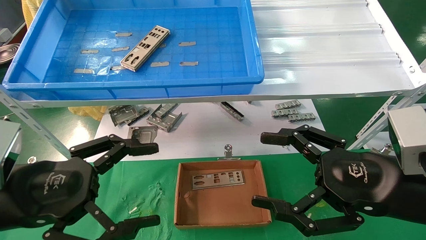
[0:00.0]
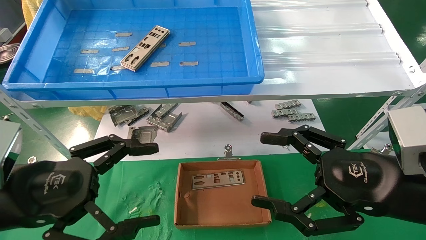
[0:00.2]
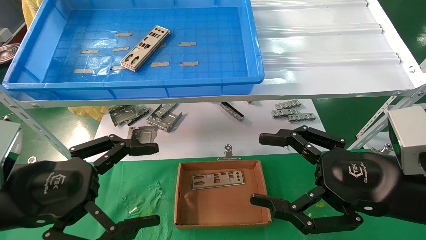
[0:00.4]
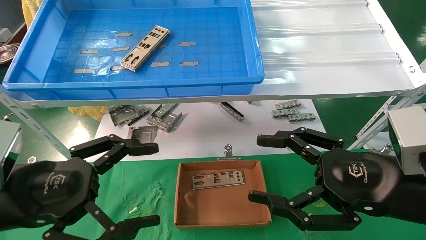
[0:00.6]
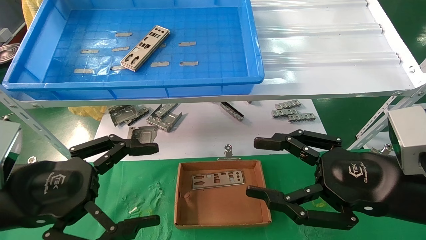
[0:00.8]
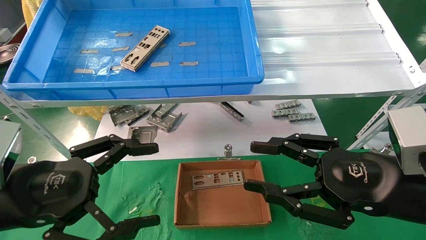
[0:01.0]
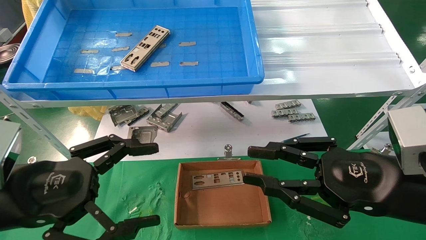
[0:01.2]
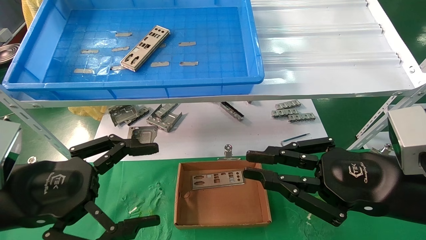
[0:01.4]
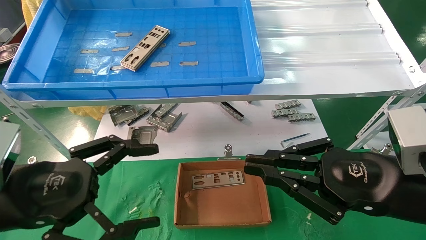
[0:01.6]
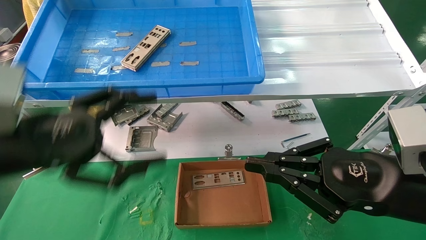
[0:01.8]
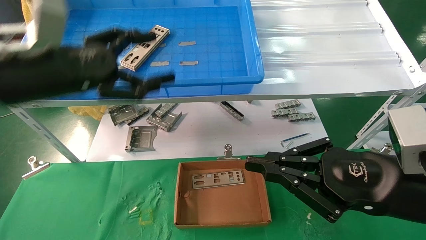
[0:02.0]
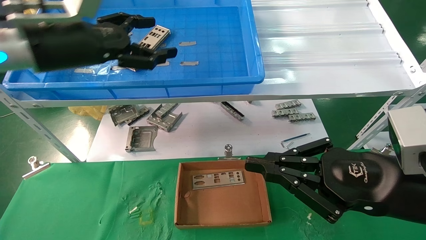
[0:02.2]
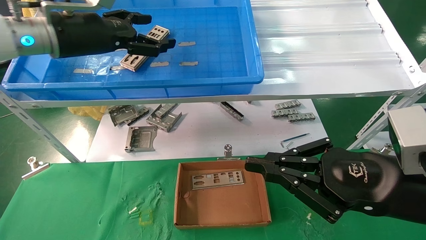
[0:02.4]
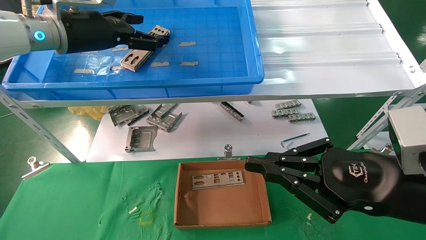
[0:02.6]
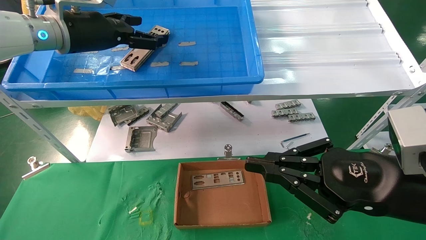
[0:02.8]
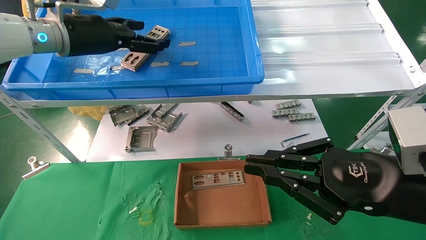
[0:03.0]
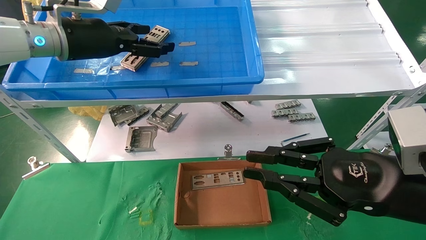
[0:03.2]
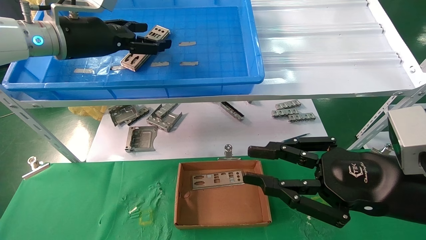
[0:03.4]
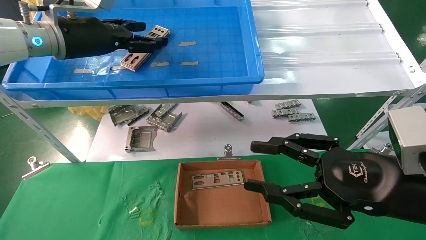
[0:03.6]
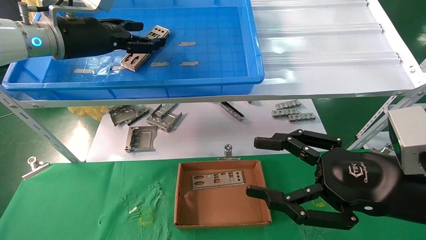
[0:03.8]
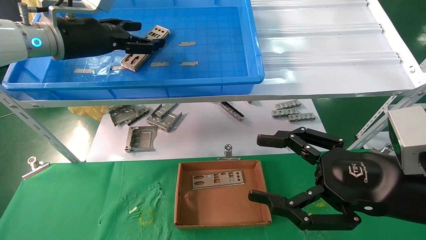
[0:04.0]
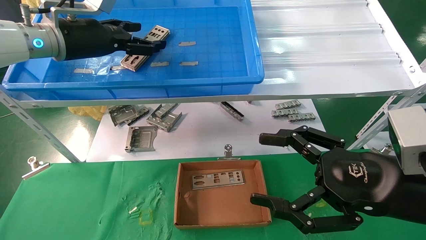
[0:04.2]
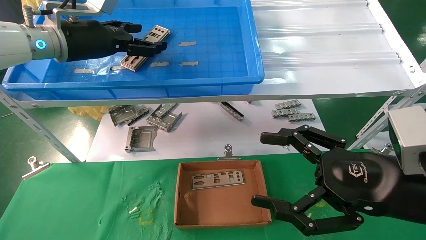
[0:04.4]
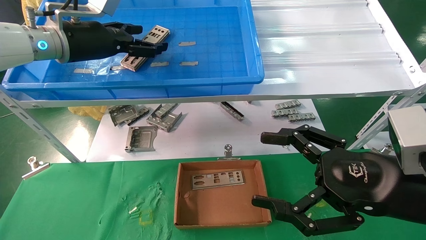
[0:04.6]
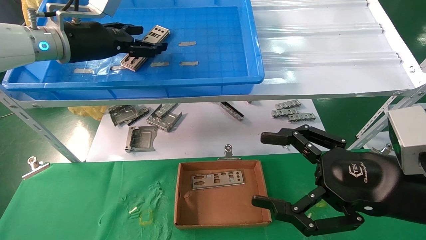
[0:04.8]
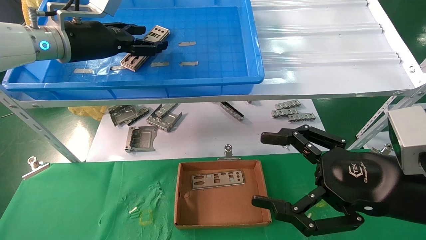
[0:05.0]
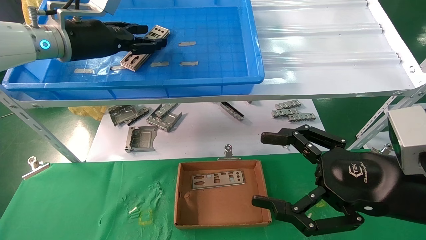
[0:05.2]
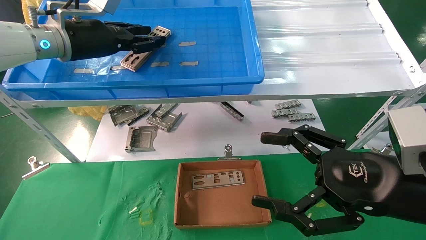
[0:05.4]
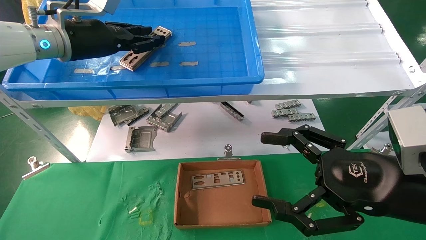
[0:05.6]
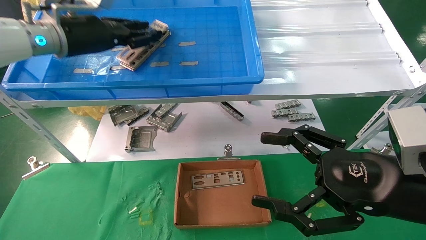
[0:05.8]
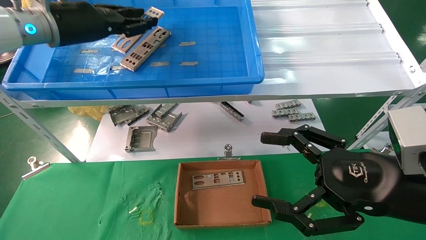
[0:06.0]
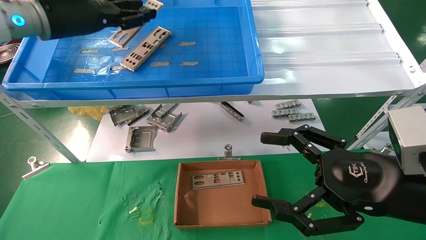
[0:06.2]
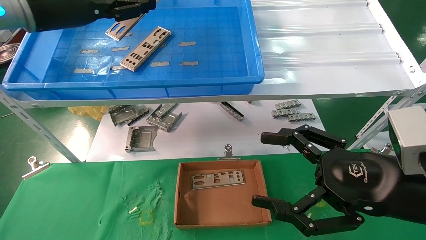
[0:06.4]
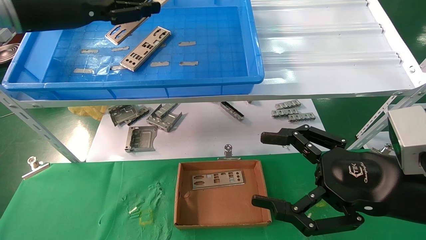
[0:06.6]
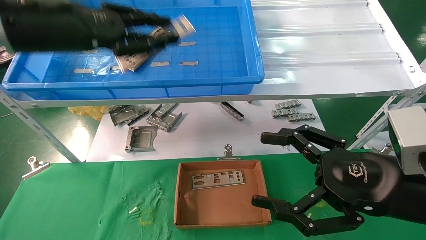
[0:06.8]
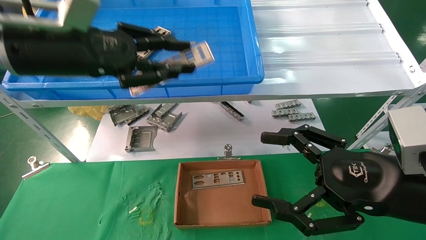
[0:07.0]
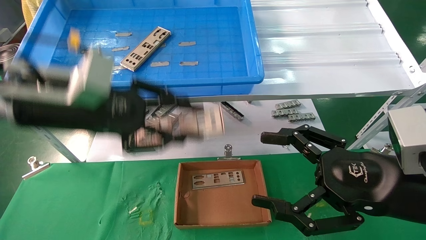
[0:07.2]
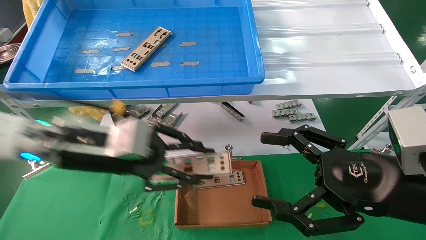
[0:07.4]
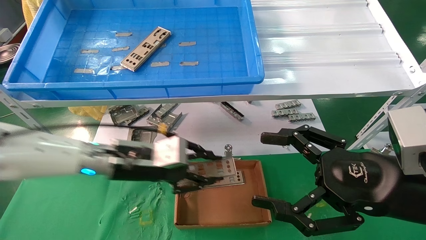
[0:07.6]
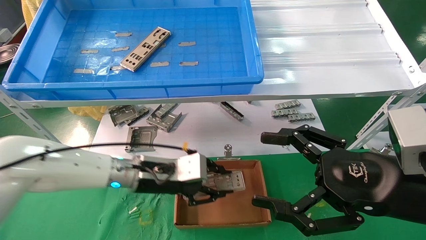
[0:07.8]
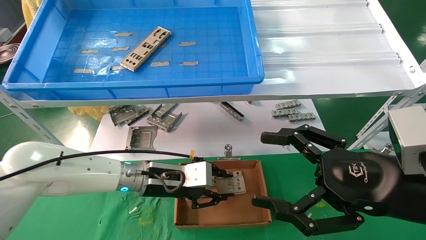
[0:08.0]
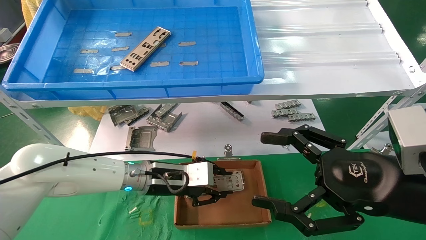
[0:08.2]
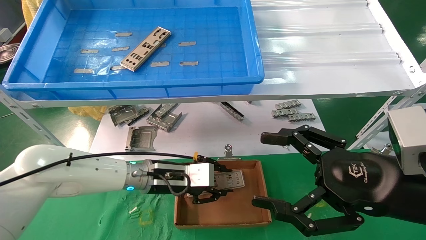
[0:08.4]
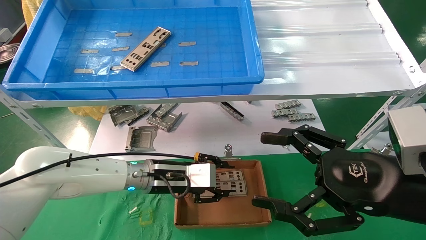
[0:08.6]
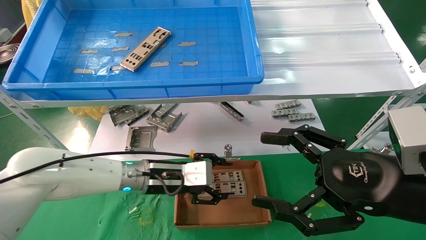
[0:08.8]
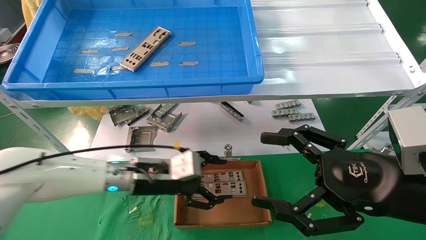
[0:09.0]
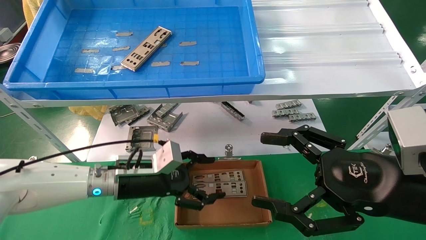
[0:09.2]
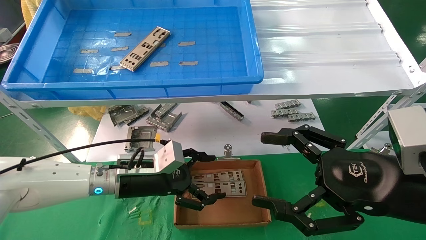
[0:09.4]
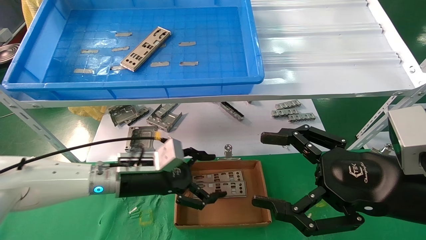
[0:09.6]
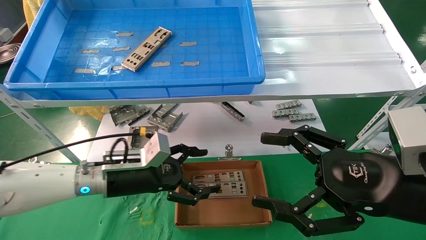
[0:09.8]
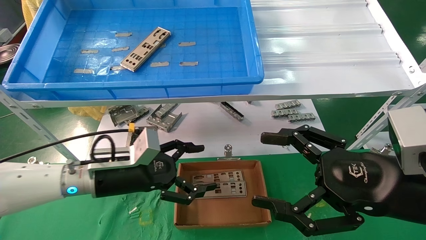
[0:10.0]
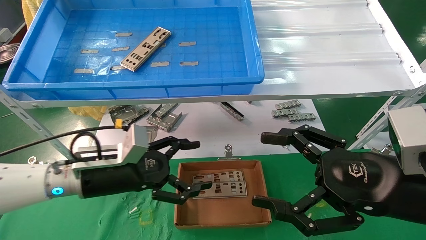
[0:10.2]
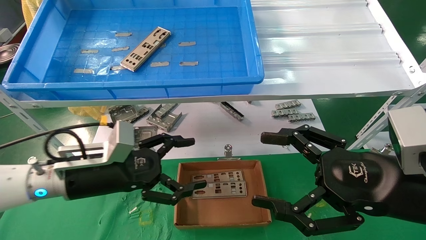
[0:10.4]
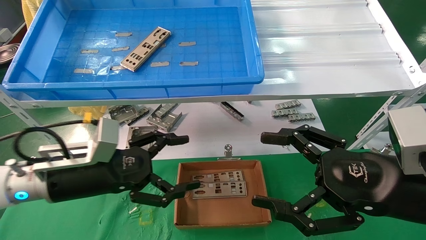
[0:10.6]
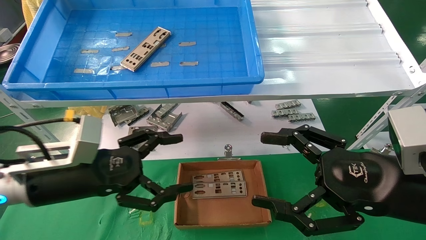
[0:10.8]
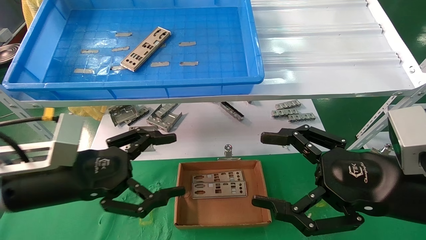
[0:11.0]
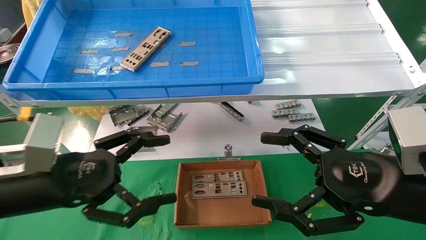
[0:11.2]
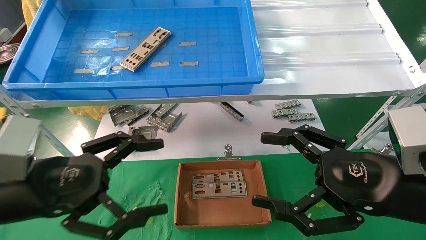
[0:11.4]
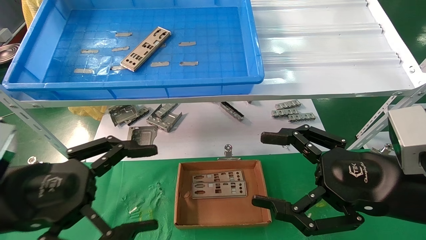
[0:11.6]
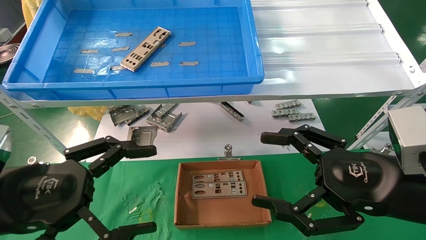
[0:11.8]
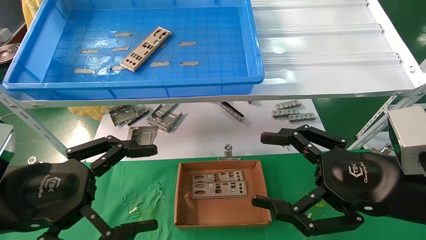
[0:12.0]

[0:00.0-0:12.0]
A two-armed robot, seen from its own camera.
Task of the whole recording: pick up the parts on the tray and put them in the cardboard box.
Step, 0:02.0 to 0:05.6: Pick up the IO bracket from the container box.
Step, 0:05.8 to 0:08.4: Place the IO bracket into the ingredient slot.
0:00.0 to 0:01.6: The right gripper closes up.
0:01.6 to 0:03.0: The left gripper shifts approximately 25 cm forward and upward.
0:03.0 to 0:04.4: The right gripper opens its fingers.
0:04.4 to 0:06.0: The left gripper closes.
0:06.0 to 0:07.6: The left gripper moves downward and to the right, roughly 25 cm.
0:07.6 to 0:09.0: The left gripper goes about 5 cm downward, and opens.
0:09.0 to 0:10.4: The left gripper shifts roughly 10 cm to the left and backward, and opens its fingers.
0:10.4 to 0:12.0: The left gripper goes approximately 15 cm backward and to the left.

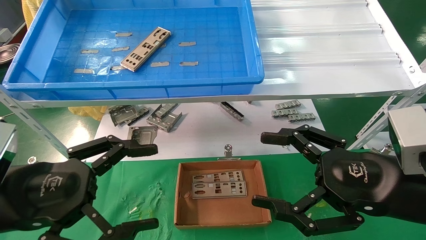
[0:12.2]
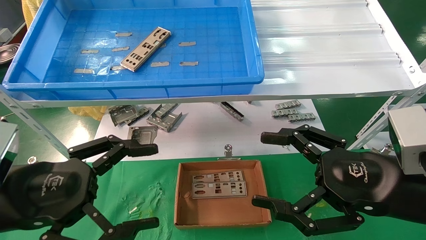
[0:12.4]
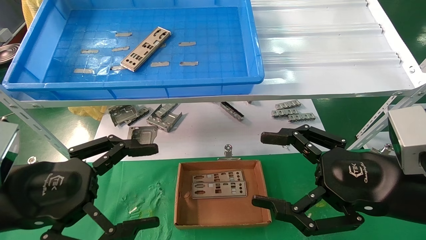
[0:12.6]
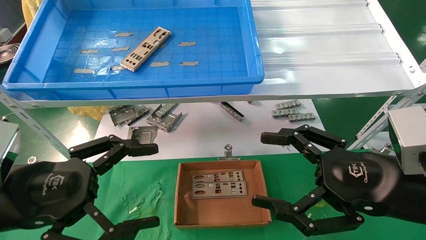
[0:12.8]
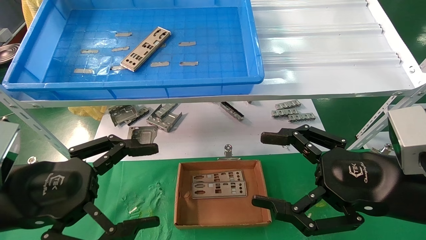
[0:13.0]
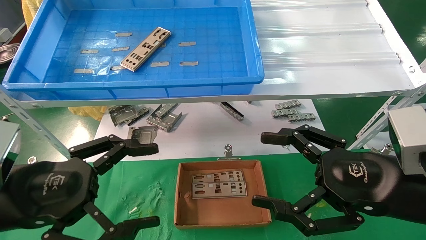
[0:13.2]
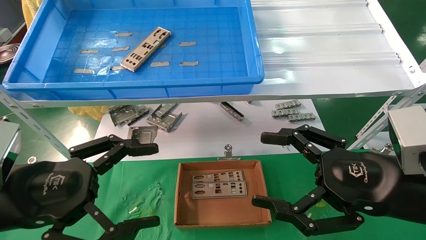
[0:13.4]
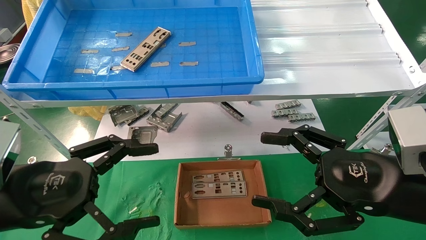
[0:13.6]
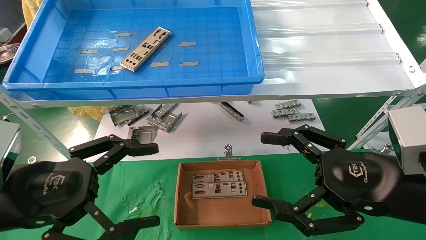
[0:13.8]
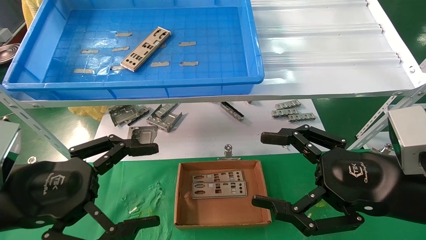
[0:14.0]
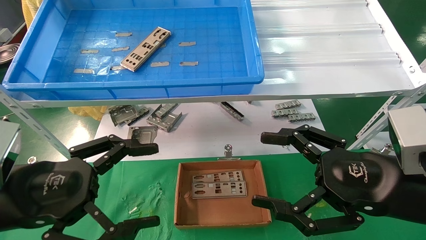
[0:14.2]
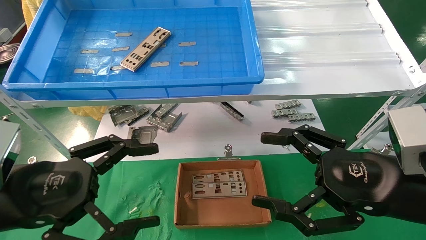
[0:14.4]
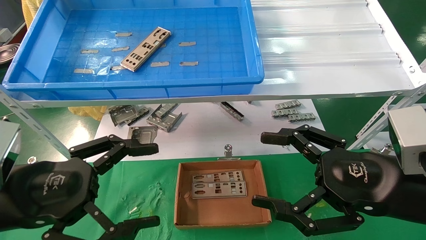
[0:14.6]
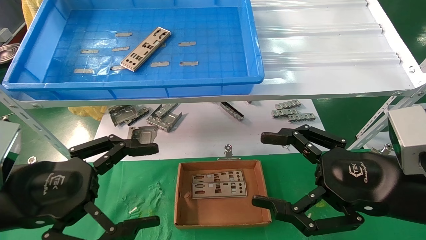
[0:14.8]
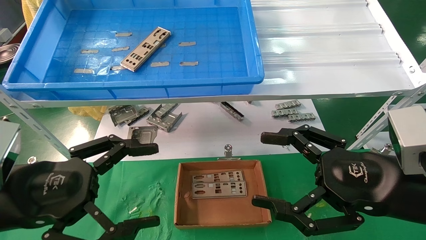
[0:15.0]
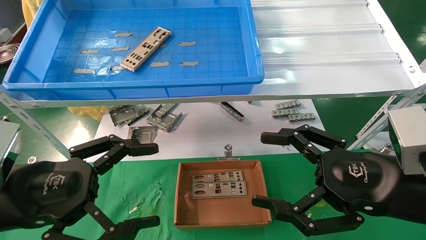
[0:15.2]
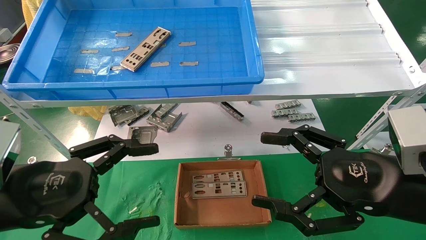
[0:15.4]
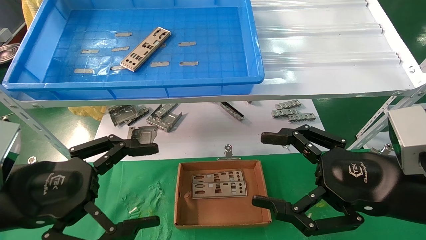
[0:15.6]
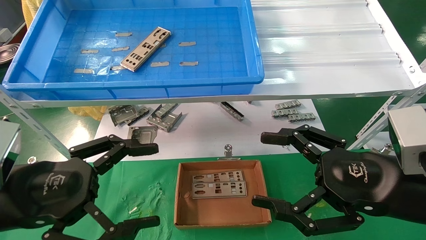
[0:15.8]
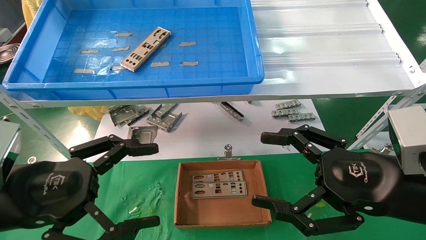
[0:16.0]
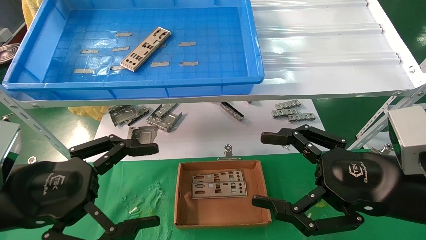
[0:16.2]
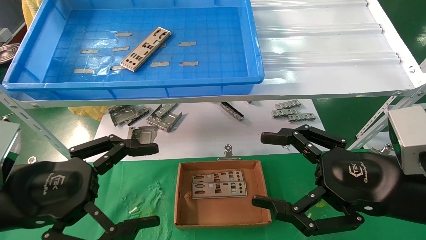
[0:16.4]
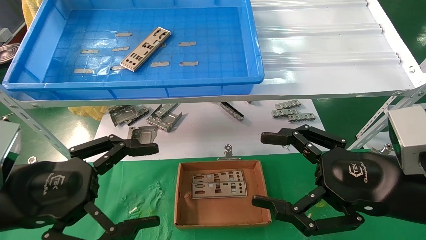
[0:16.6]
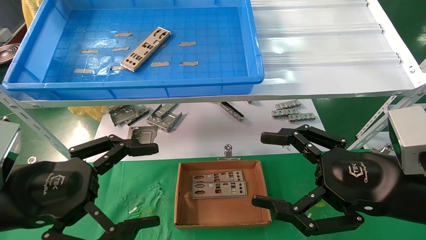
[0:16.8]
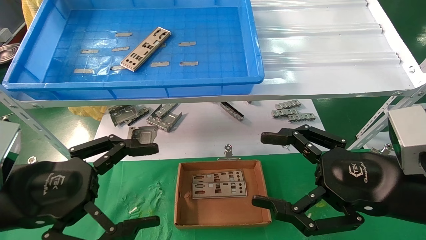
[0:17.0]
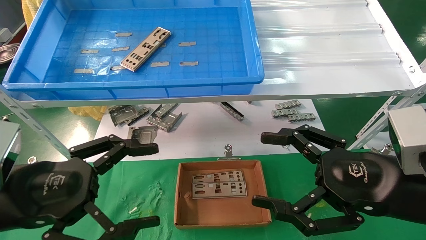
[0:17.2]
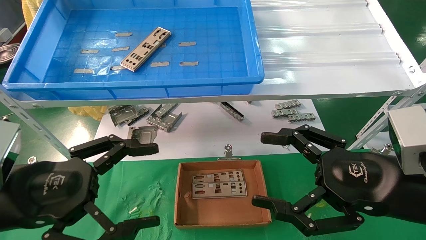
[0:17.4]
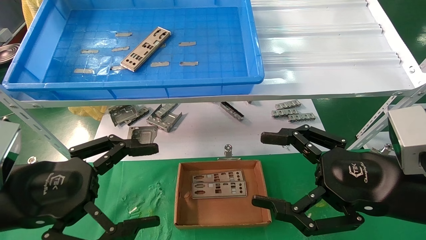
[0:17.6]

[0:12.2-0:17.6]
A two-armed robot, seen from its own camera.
Task of the whole recording: pick up the parts on the tray and put them in the cardboard box.
0:12.2 to 0:17.6: Both grippers stay put.
